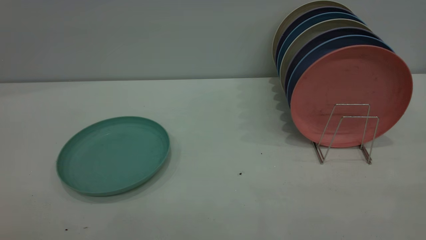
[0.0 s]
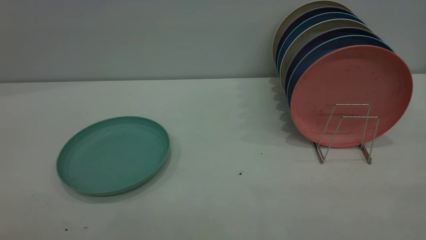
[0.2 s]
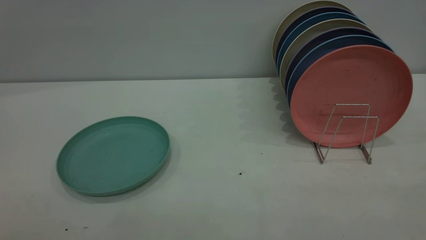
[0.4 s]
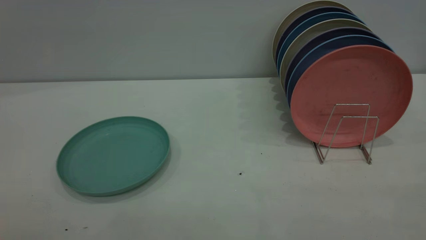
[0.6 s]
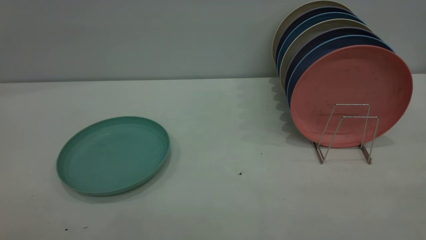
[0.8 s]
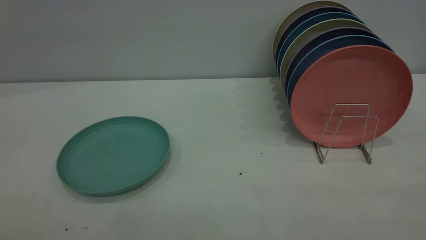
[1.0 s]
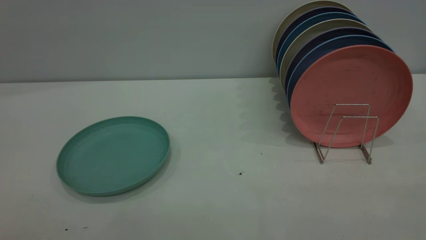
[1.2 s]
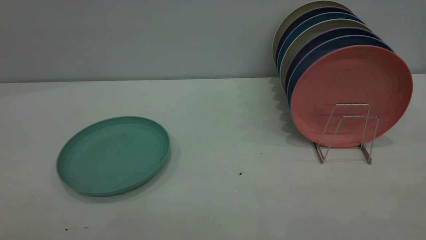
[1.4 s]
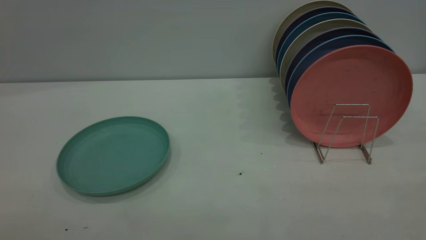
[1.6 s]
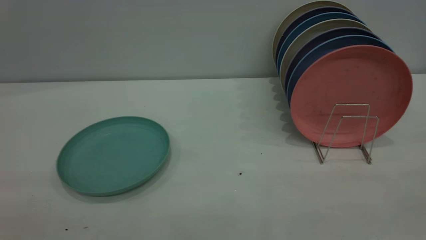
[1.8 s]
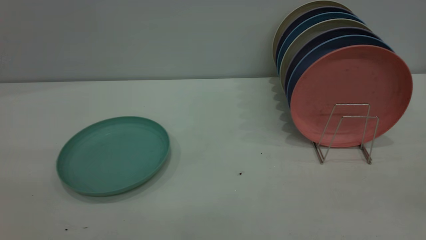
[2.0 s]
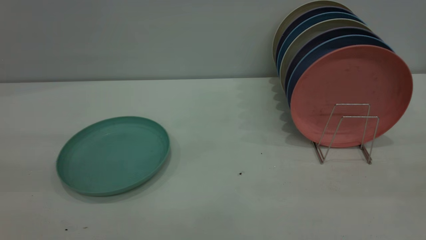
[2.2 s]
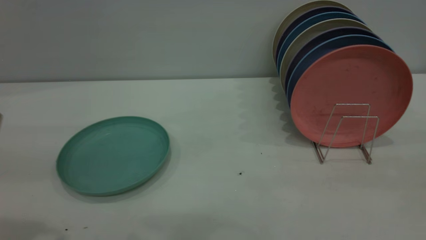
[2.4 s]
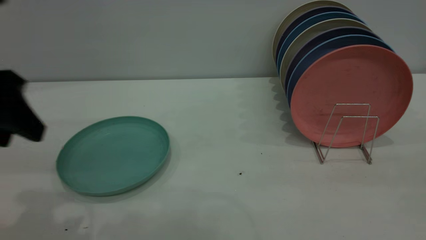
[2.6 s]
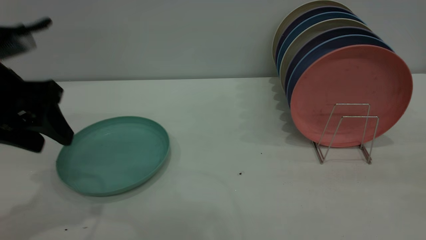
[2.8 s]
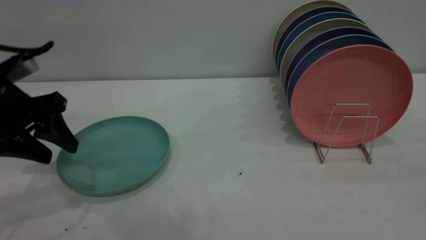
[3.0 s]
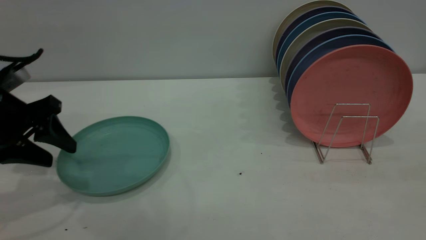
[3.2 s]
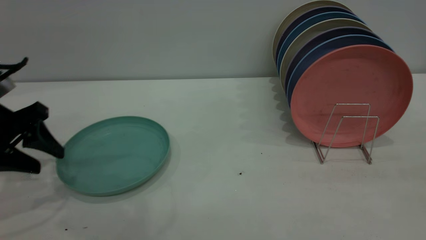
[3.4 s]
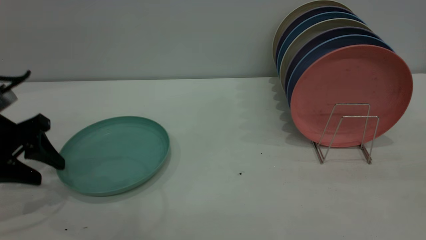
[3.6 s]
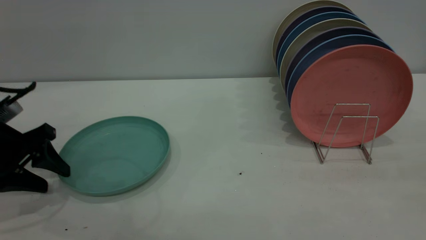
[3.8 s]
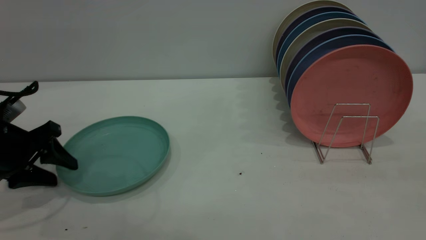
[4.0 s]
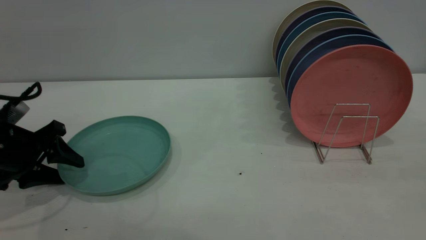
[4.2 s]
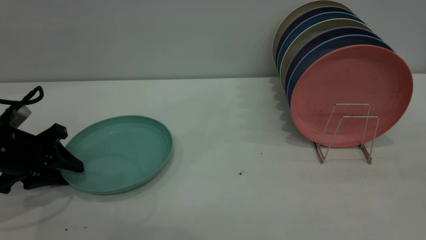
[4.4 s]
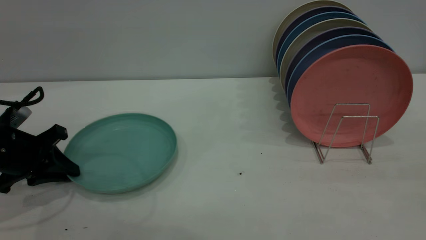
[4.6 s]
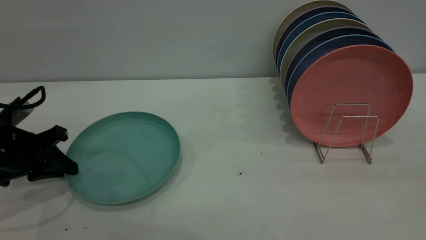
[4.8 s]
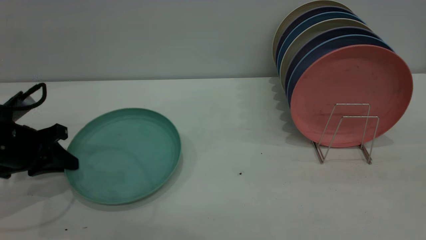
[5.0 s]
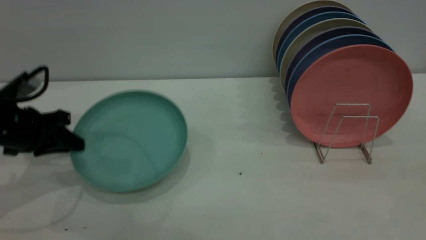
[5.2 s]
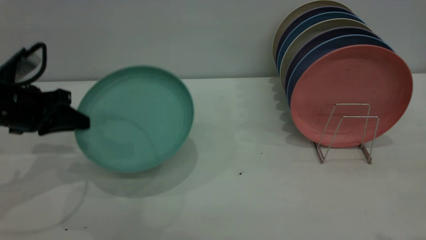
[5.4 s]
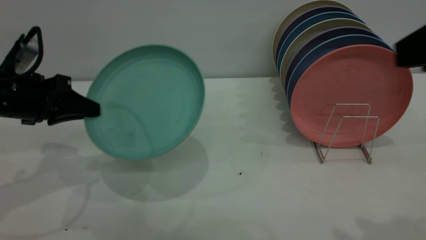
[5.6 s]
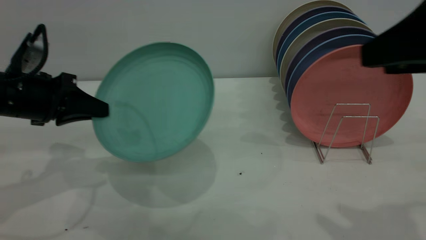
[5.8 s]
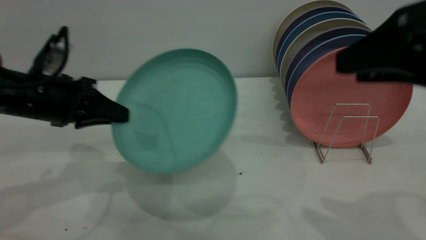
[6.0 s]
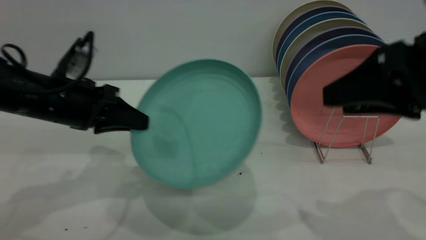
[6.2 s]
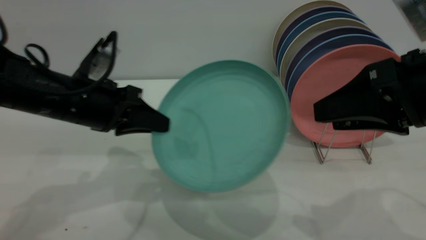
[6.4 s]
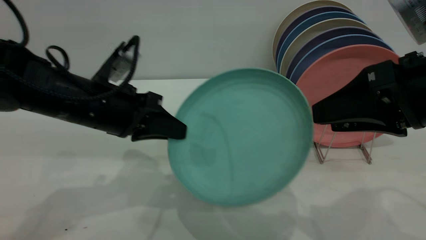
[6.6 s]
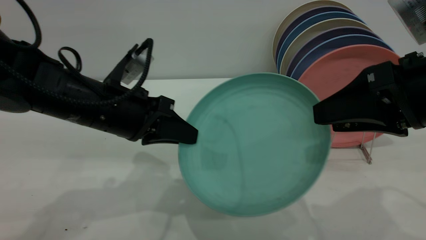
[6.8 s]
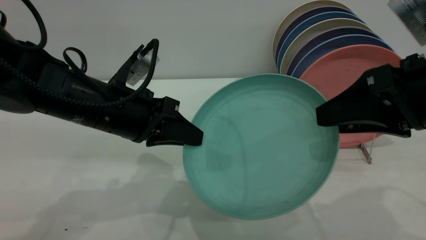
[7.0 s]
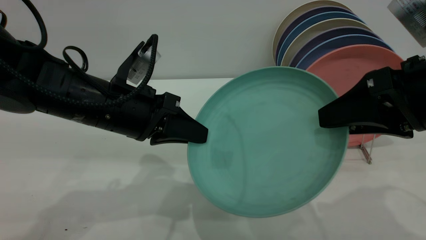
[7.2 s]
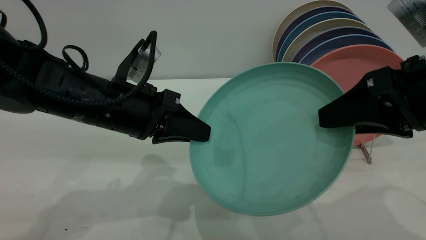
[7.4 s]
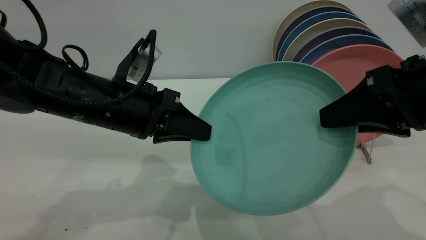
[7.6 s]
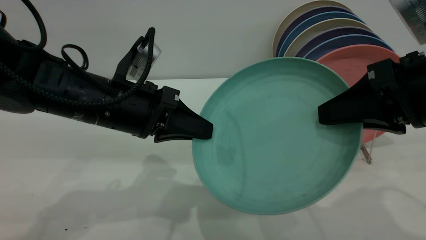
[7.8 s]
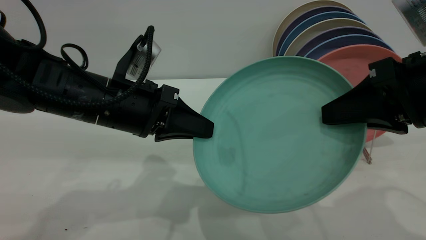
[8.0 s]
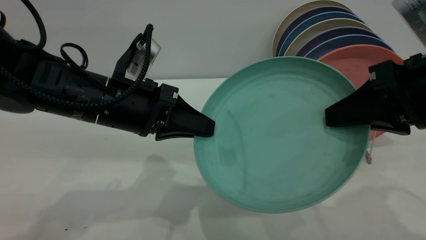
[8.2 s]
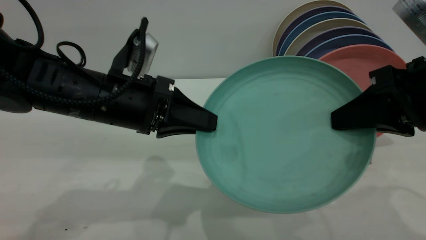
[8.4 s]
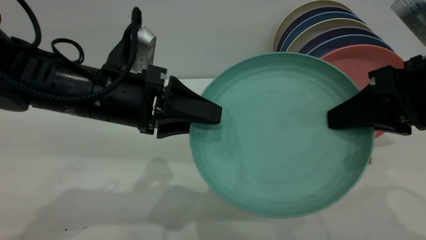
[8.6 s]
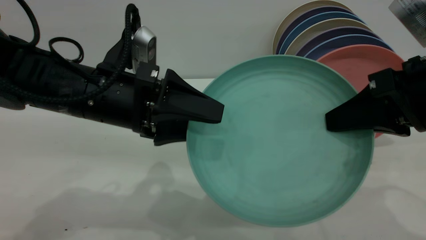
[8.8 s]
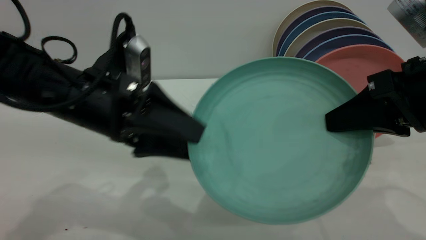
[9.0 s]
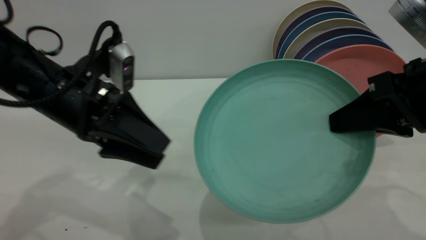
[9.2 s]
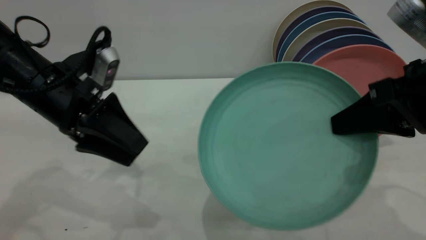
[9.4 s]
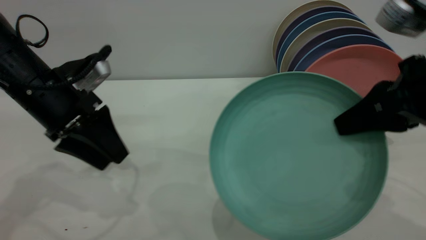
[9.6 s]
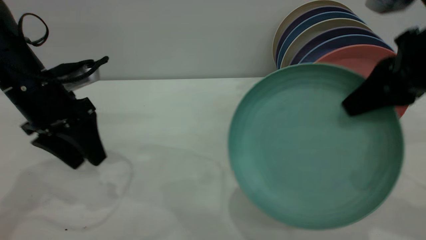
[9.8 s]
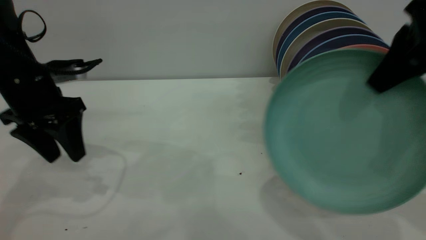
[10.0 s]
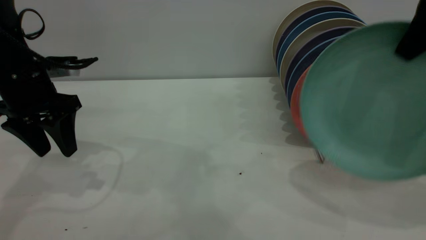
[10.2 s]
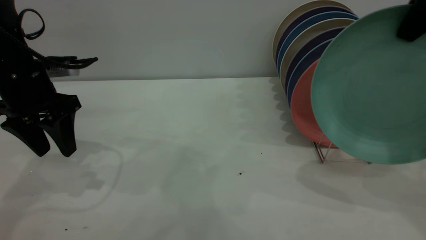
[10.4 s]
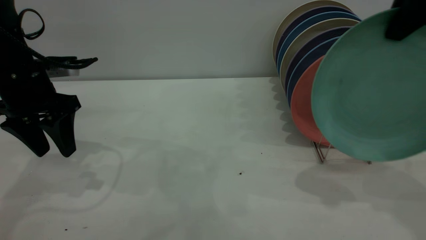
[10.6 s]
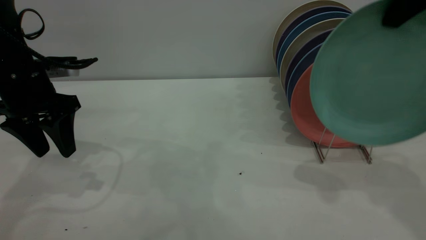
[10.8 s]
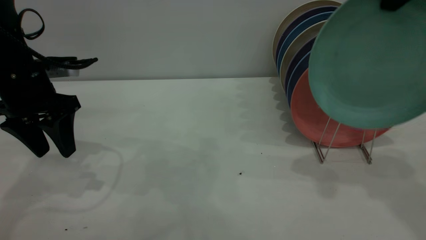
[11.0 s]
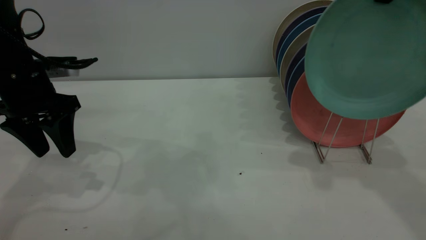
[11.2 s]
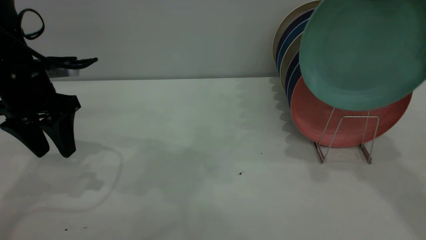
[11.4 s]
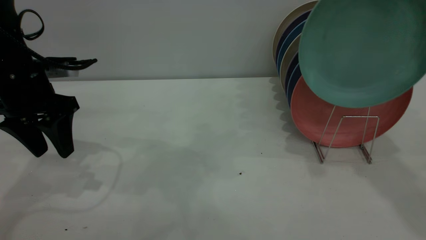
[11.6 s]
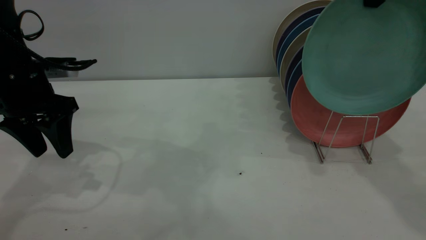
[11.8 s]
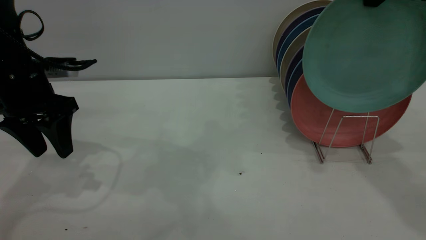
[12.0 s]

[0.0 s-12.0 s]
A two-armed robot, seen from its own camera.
Task of the whole recording: the left gripper grasp the green plate, the left gripper pass the green plate to the right gripper, and the right gripper place the green plate on the plate rack.
Step, 0.0 to 5.0 s: Pick up the plate with the left gripper.
Step, 5.2 to 9.0 s: Pass the plate from the left gripper to the right gripper.
1.6 to 3.0 s: The left gripper is displaced forward and downward by roughly 35 cm.
3.0 to 4.4 s: The left gripper heads downward, covering approximately 10 cm, and closes its fingers.
4.4 to 6.0 s: The left gripper goes roughly 10 cm to the right and upward, and closes its fingers. The right gripper travels forward and downward by about 15 cm.
6.0 to 7.6 s: The left gripper goes approximately 10 cm to the right. The right gripper closes.
7.6 to 9.0 s: The right gripper closes up, while the left gripper opens.
9.0 to 10.4 s: The right gripper shifts about 15 cm upward and forward. The left gripper moves to the left and forward, roughly 15 cm.
10.4 to 12.0 s: The right gripper moves forward, approximately 5 cm.

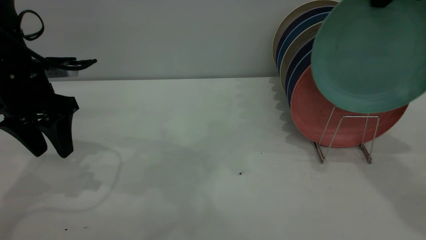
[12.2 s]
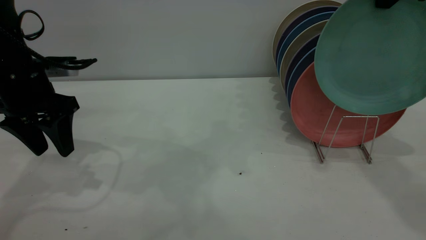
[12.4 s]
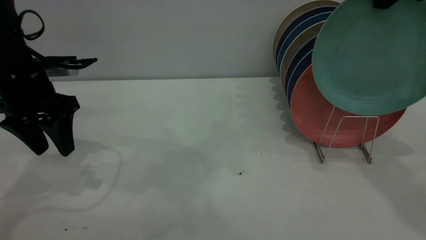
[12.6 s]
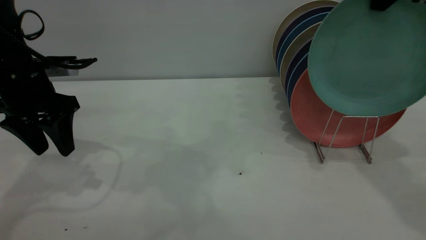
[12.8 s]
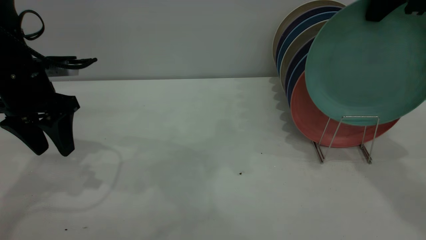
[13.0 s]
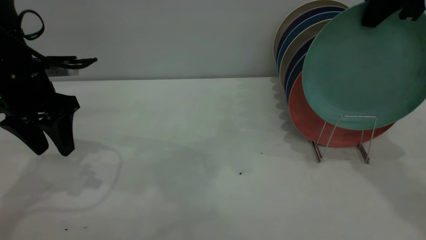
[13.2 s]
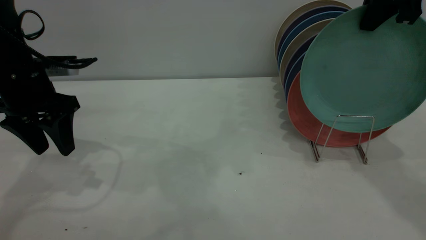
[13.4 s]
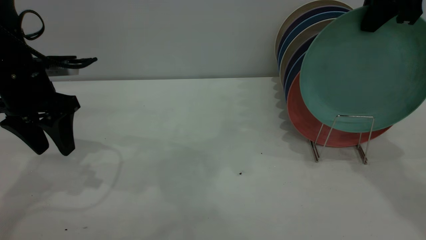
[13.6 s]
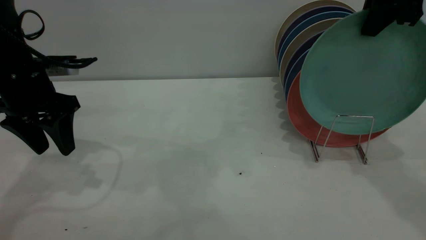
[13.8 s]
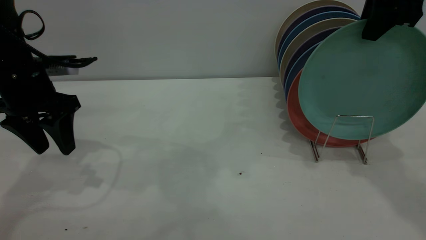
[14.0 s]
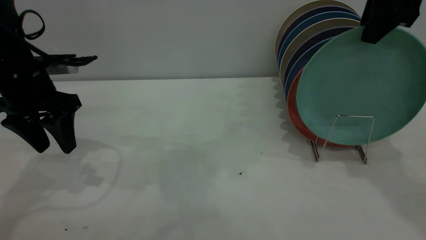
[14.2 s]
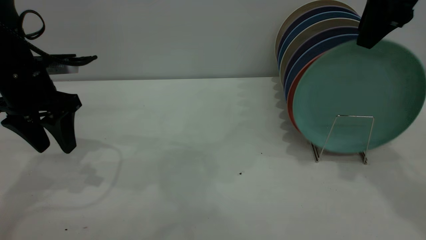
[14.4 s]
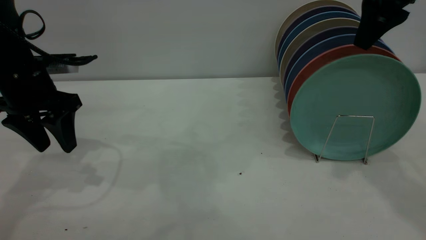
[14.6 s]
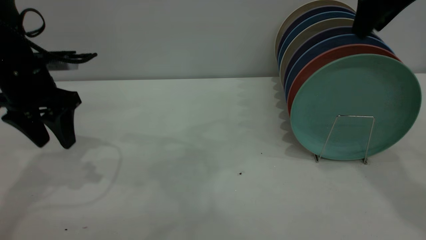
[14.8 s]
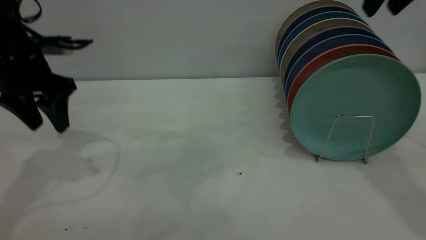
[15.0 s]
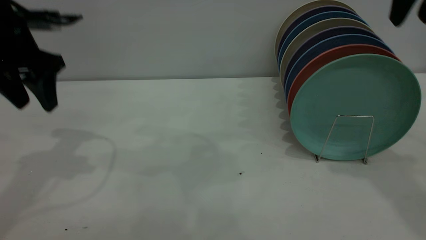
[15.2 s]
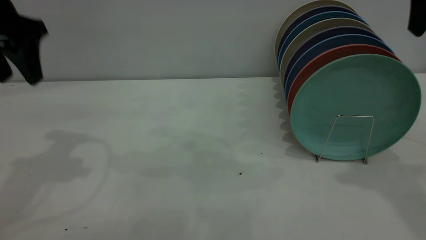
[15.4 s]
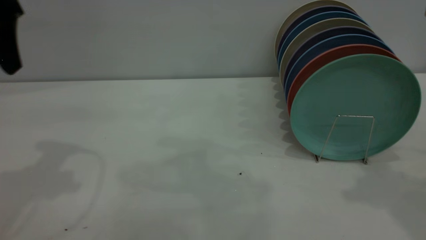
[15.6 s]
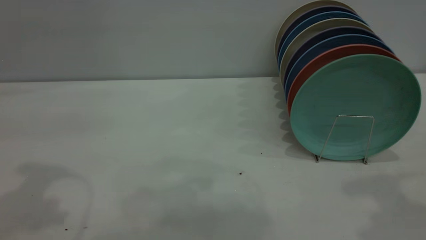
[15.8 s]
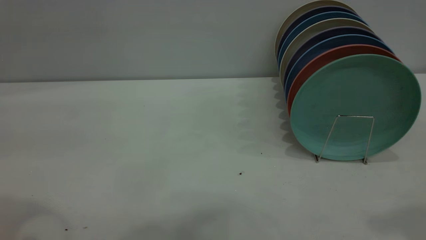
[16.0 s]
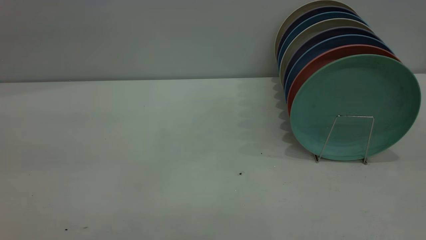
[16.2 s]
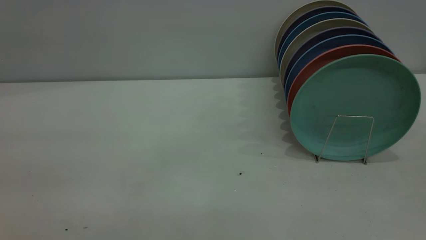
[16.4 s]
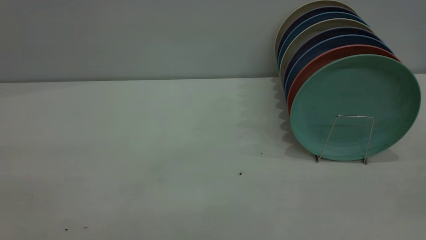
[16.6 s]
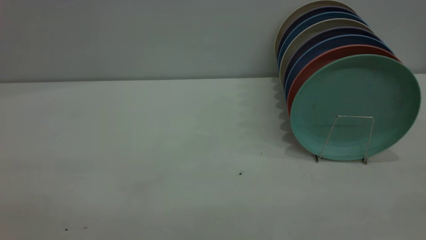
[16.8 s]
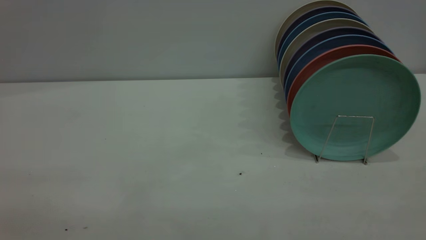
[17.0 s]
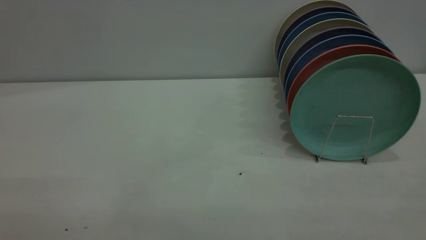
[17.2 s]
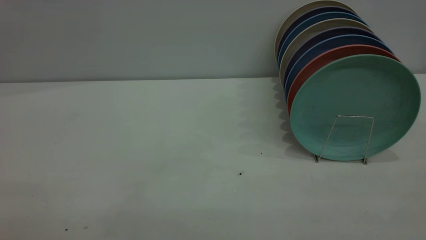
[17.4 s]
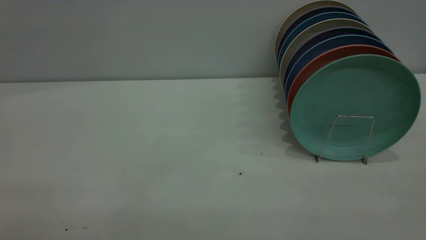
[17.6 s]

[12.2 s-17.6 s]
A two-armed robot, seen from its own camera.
Task of the whole recording: the left gripper grasp the green plate, the left gripper pass the green plate to the right gripper, and the right gripper place the green plate on the plate rack.
Step, 12.2 to 14.8 s: Place the plate on the shelf.
12.2 to 13.6 s: There are only small adjustments of the grippers.
13.6 to 15.0 s: The right gripper opens its fingers.
15.0 to 16.2 s: The left gripper goes about 35 cm backward and upward.
